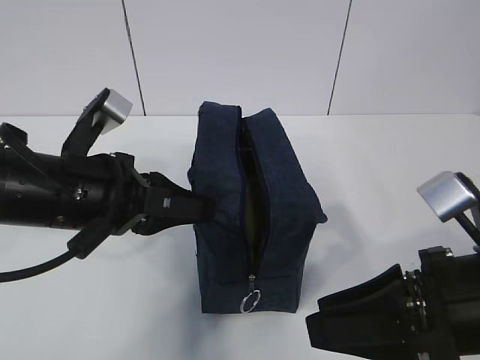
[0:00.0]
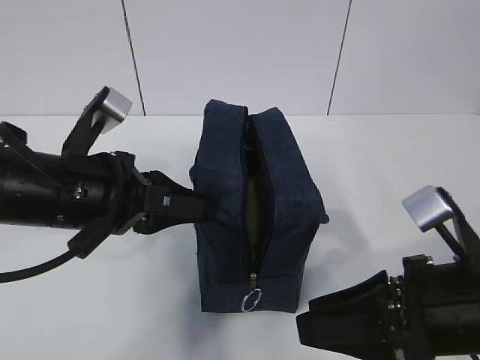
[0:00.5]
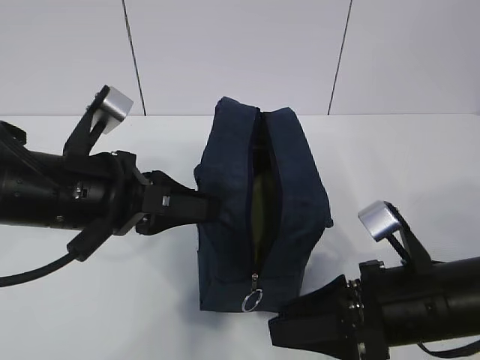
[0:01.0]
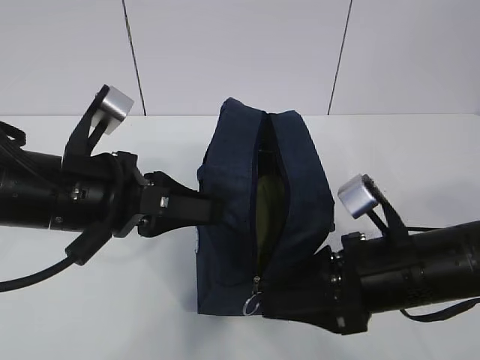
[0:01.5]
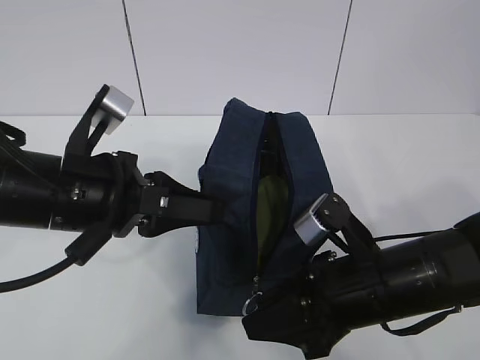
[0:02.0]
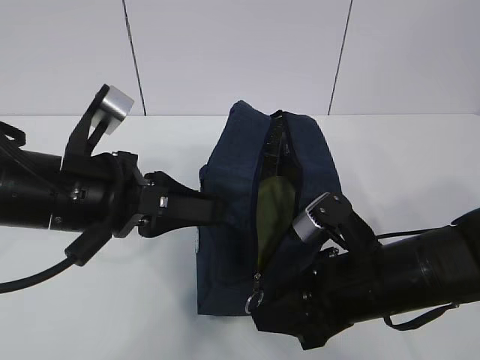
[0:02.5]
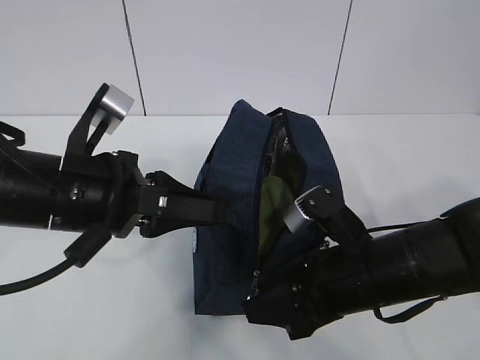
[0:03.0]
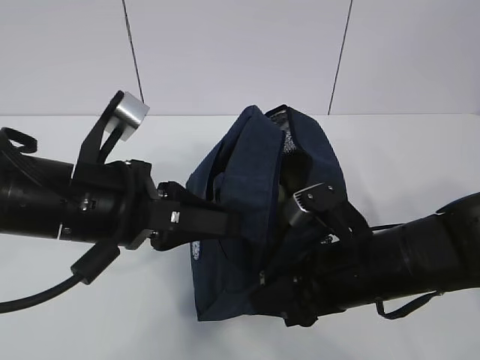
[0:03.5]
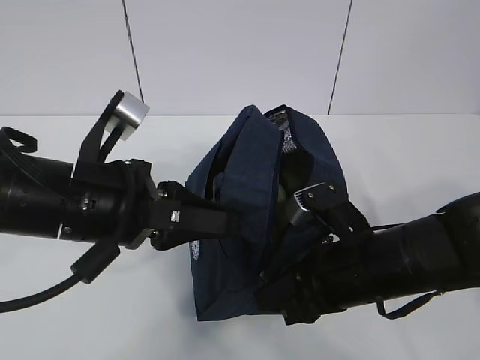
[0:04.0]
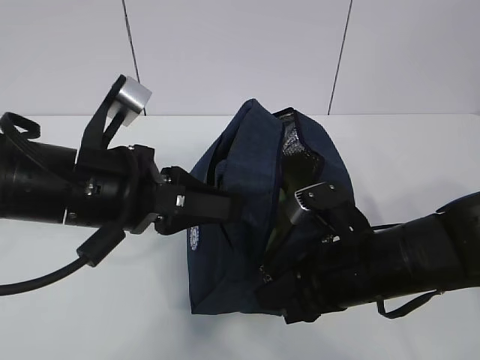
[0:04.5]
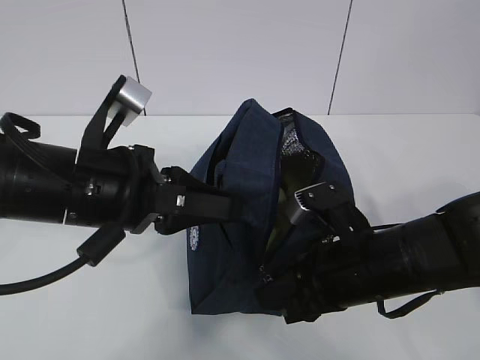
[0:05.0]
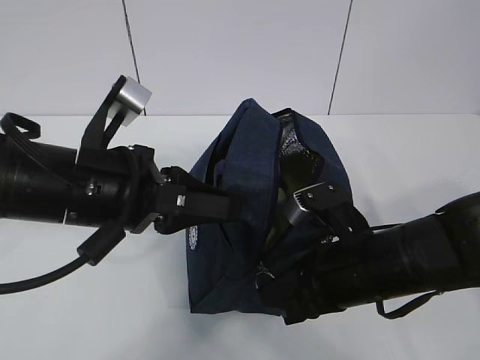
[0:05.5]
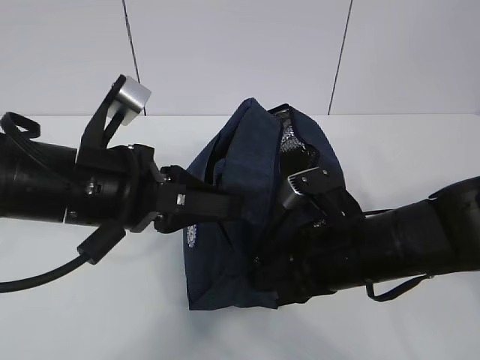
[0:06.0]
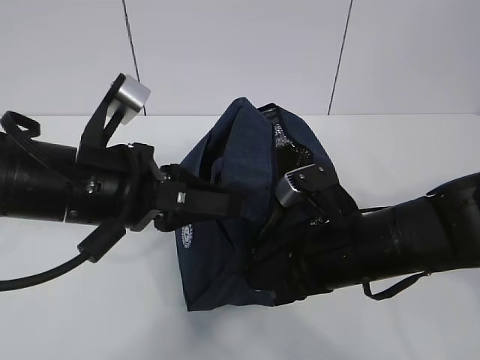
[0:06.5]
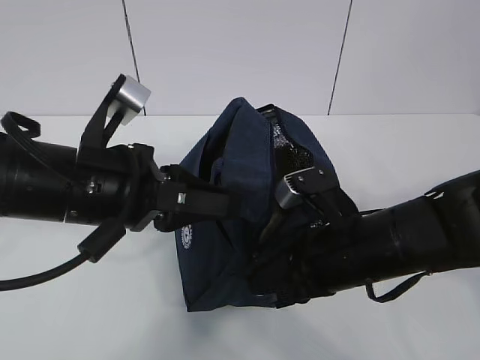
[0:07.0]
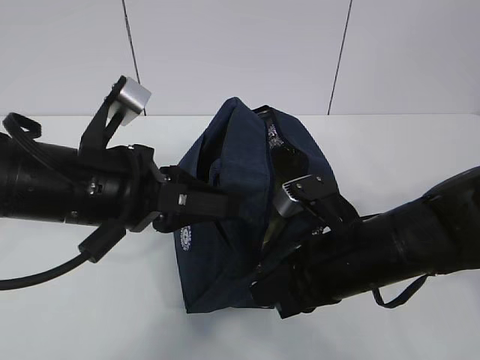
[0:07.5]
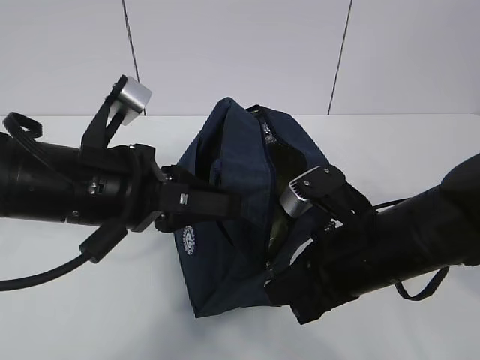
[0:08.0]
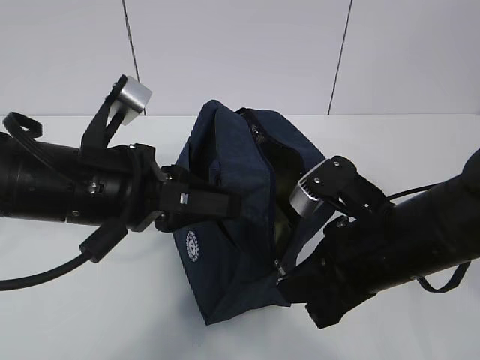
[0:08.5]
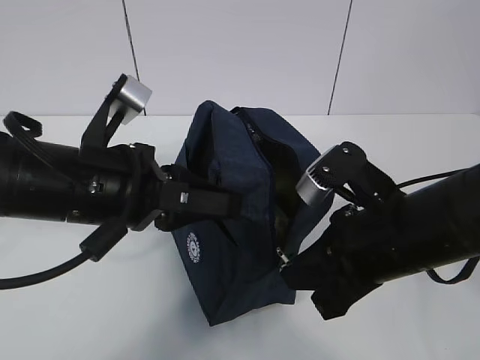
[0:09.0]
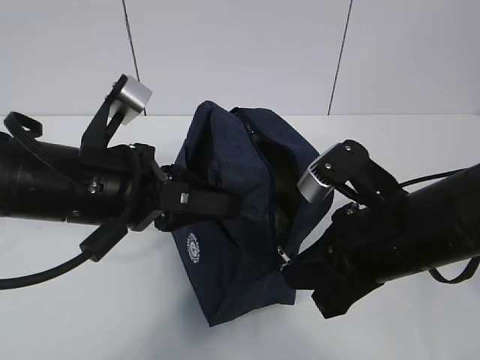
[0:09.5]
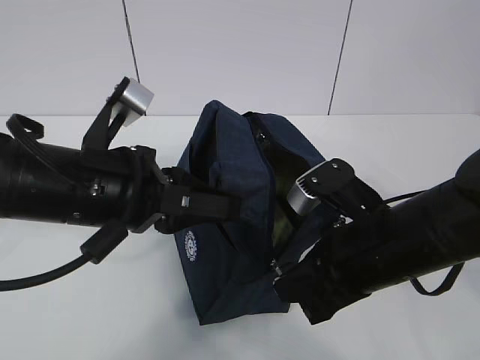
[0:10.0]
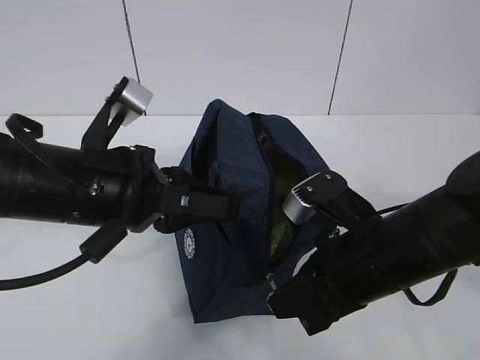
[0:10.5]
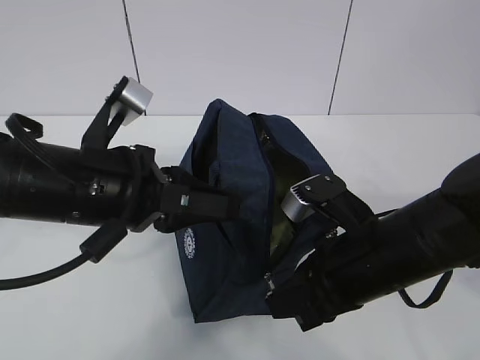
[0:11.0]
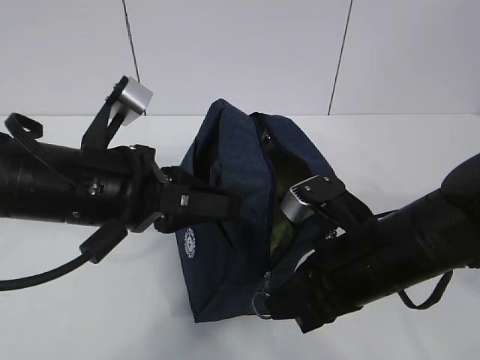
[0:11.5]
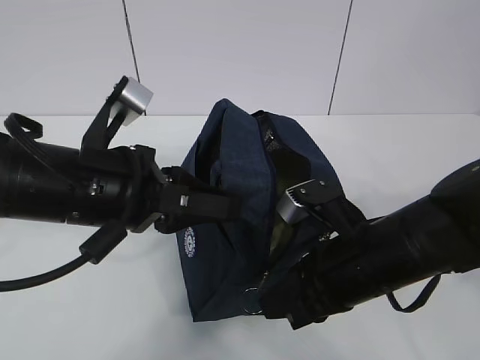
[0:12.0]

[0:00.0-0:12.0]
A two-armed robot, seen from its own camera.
0:00.0 to 0:02.0: The right gripper moves downward and forward, about 10 cm.
0:02.0 to 0:04.0: The grippers make only small movements.
0:04.0 to 0:06.0: Both grippers stay about where they are.
0:06.0 to 0:12.0: The grippers stay close to where they were, moving slightly.

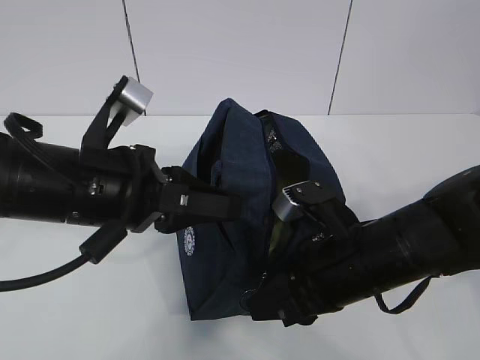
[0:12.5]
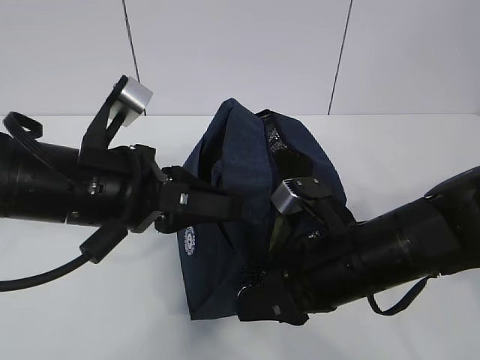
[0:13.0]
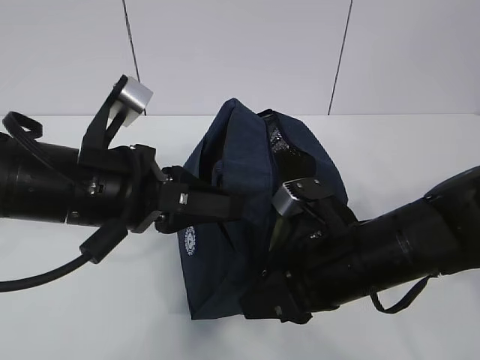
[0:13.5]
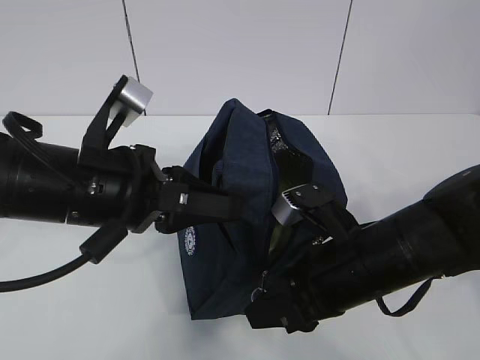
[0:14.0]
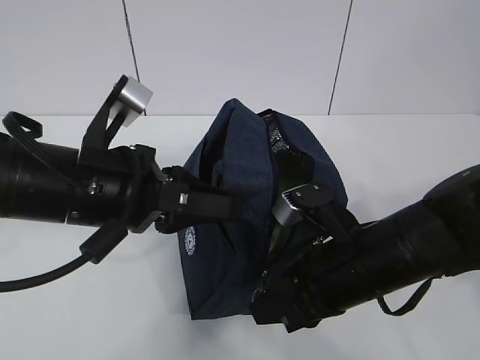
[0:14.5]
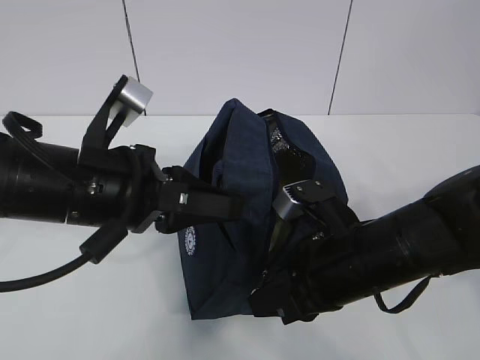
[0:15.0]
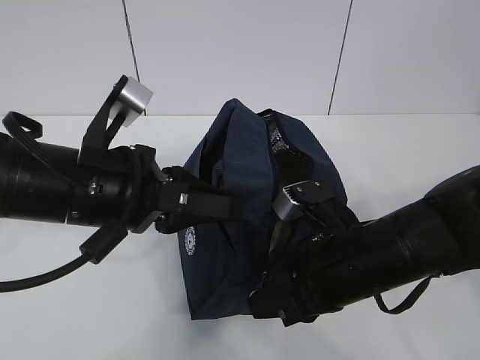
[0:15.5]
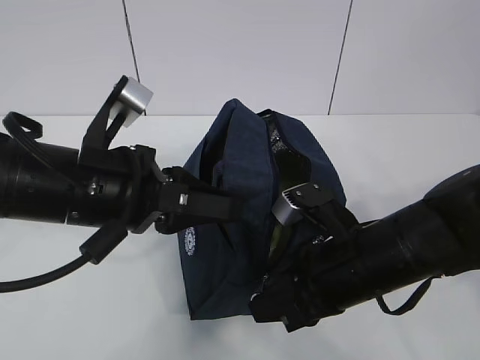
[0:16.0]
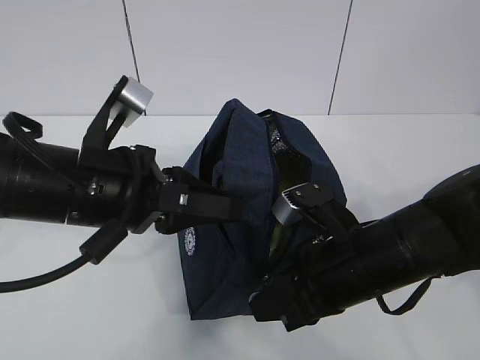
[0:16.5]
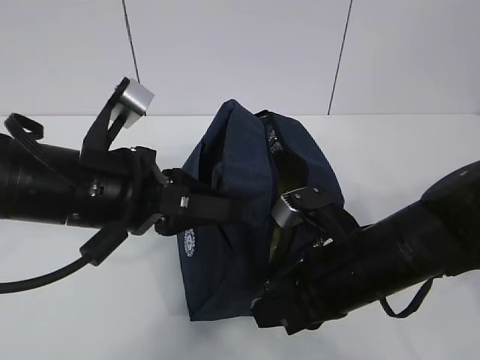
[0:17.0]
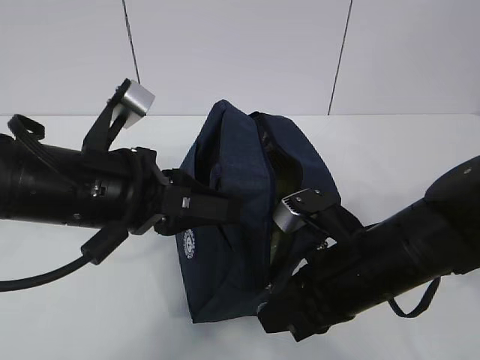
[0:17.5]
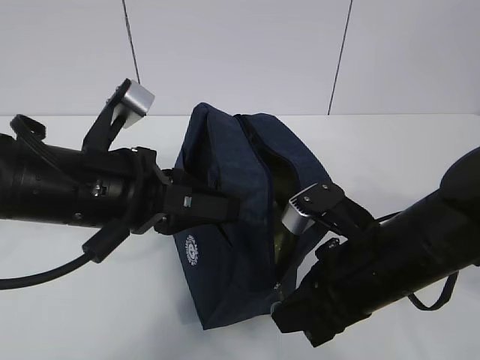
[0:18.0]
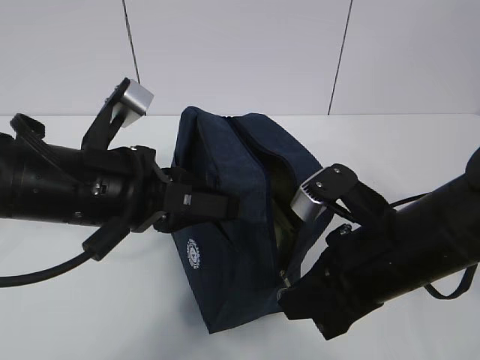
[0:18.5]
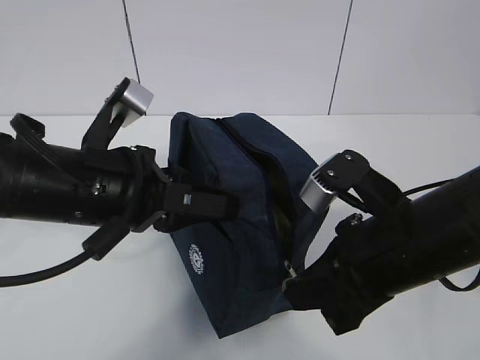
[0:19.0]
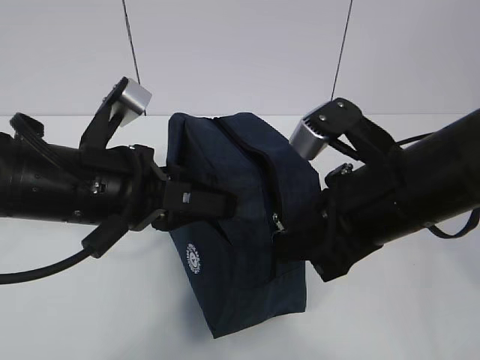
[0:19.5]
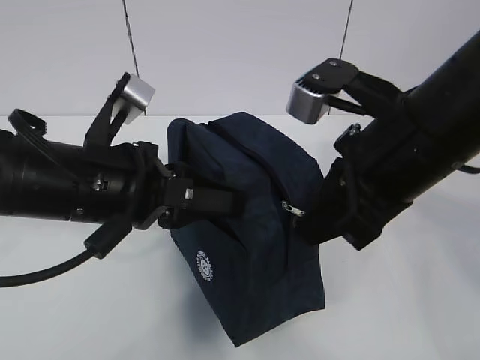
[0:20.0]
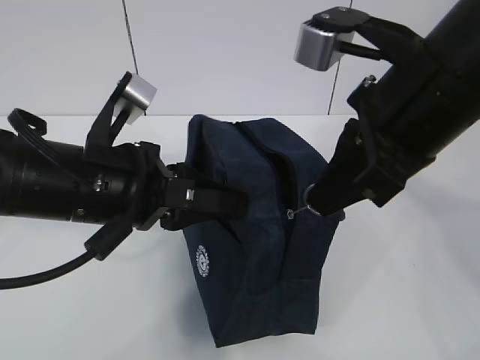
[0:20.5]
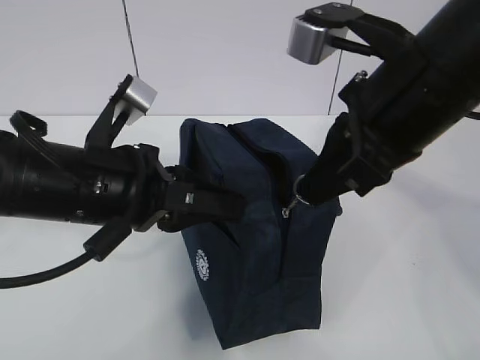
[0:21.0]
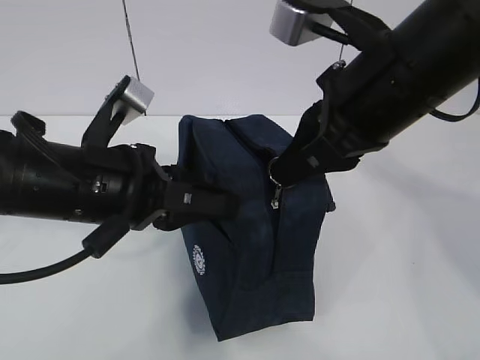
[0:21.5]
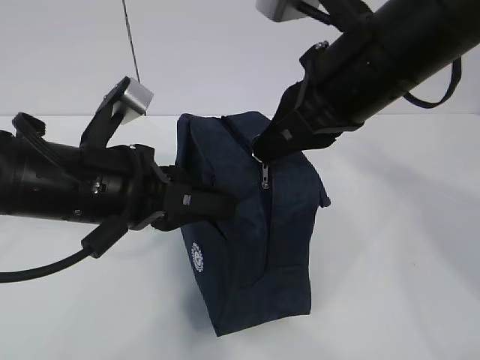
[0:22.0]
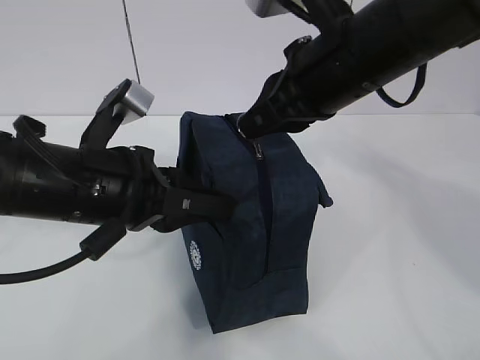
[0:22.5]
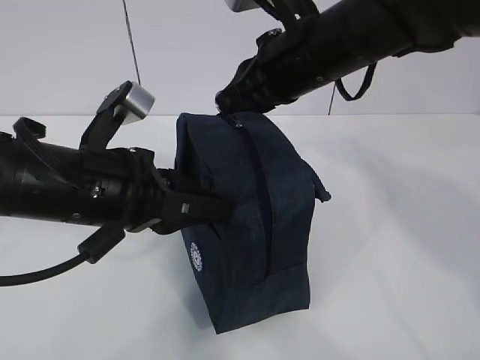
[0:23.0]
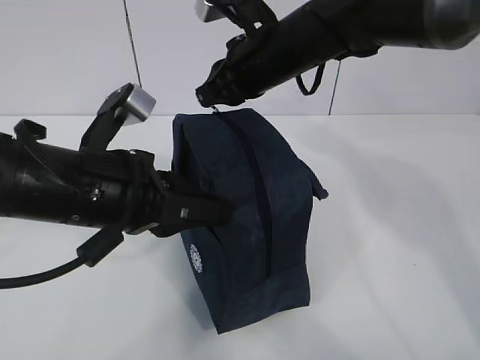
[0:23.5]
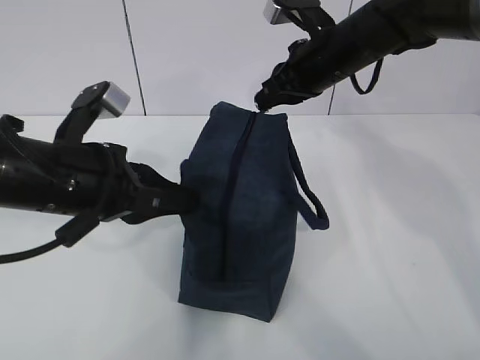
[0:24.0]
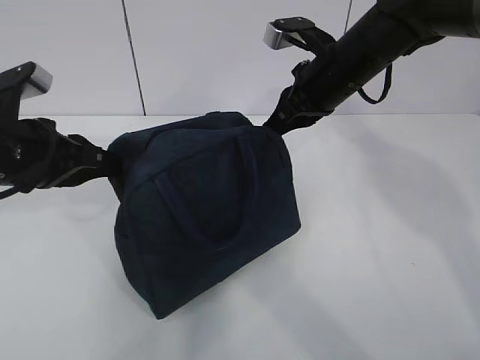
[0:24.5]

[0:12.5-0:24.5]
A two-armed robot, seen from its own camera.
Step, 0:13.5 to 0:15.5: Pull the zipper with your right hand.
0:12.5 to 0:14.5: The grippers make only small movements.
0:14.5 to 0:16.5: Both grippers stay about where they are.
0:16.5 to 0:18.5: The grippers stay close to where they were, moving slightly.
0:18.5 to 0:20.5: The right gripper heads upward, covering roughly 15 cm.
0:20.5 to 0:22.5: The right gripper shifts roughly 5 cm forward.
0:22.5 to 0:24.5: The right gripper is displaced forward and downward by roughly 15 cm, while the left gripper is displaced to the left and forward by about 10 cm.

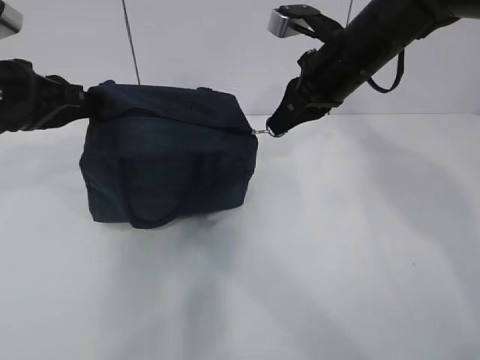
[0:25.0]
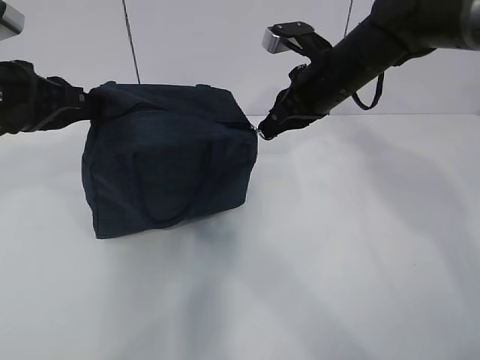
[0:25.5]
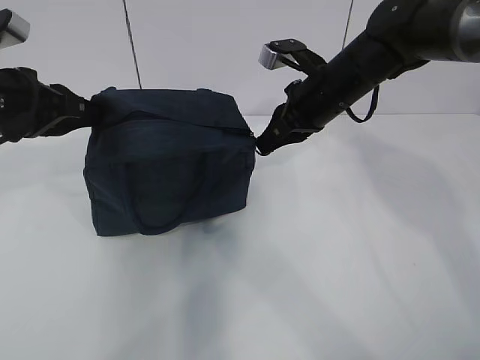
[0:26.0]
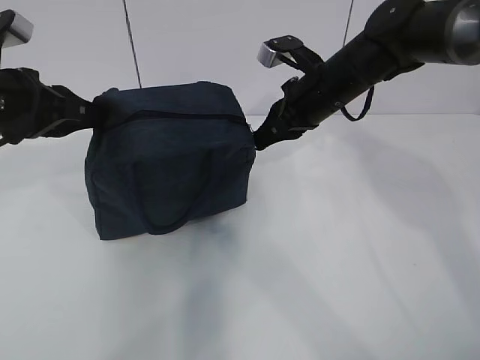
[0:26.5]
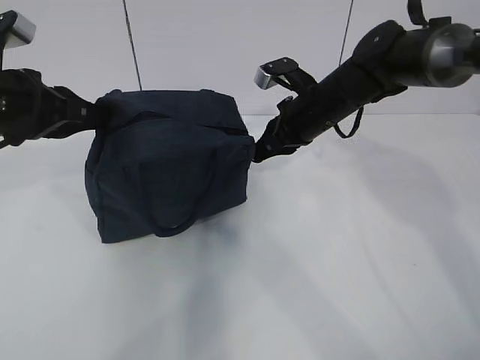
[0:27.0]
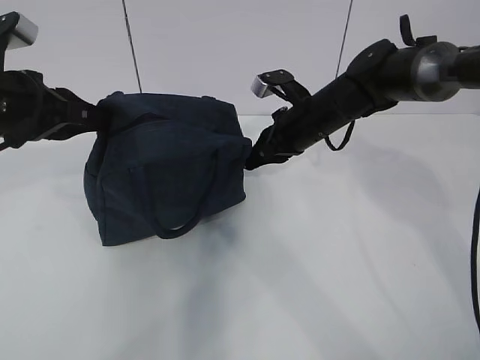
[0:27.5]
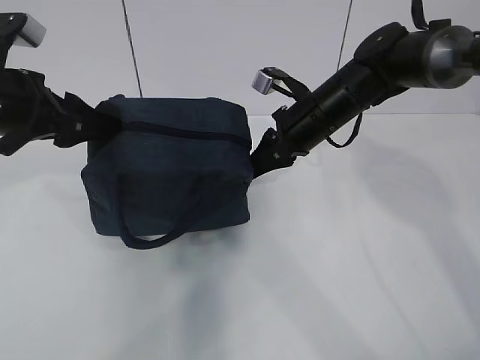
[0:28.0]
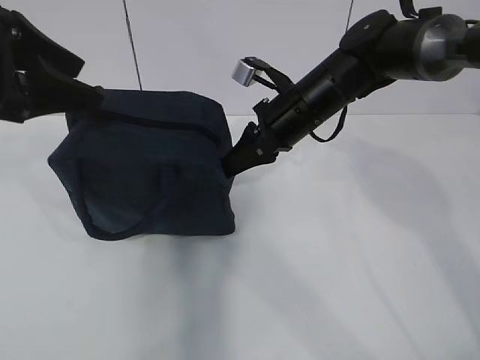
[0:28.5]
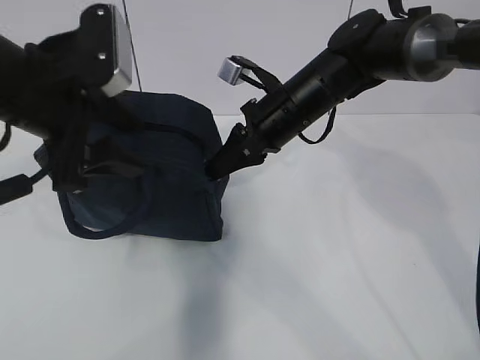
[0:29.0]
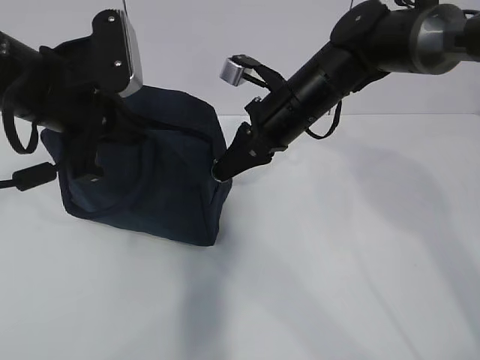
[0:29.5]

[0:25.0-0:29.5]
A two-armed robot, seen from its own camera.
0:25.0 to 0:27.0: The right gripper shifts roughly 10 cm downward.
0:27.0 to 0:29.5: The left gripper shifts roughly 5 cm to the right, reaches about 10 cm upward, then returns, and opens and closes again; the right gripper shifts by roughly 5 cm.
